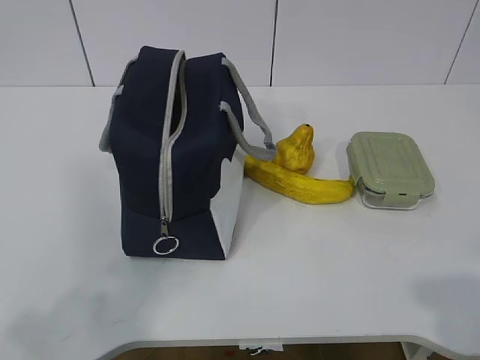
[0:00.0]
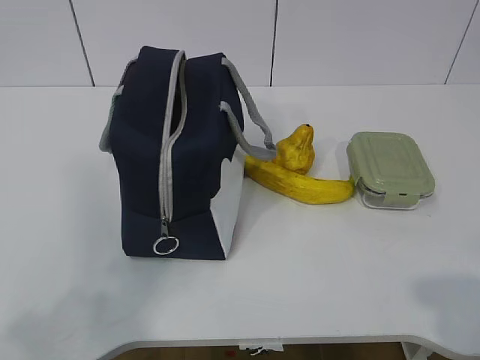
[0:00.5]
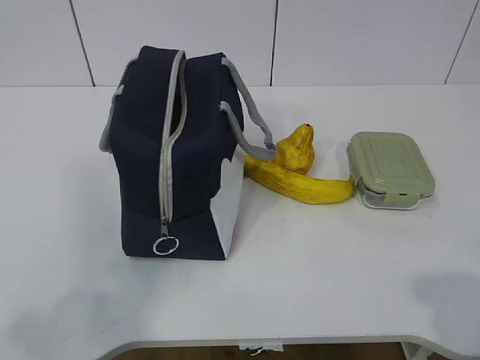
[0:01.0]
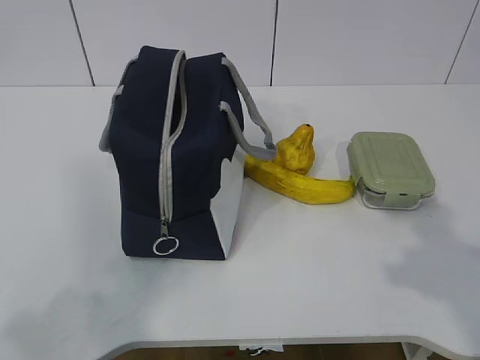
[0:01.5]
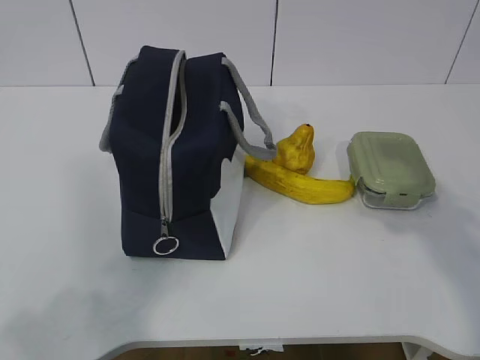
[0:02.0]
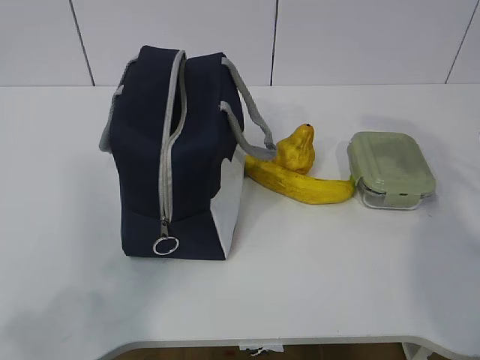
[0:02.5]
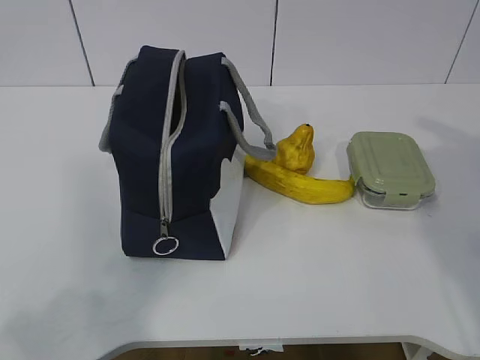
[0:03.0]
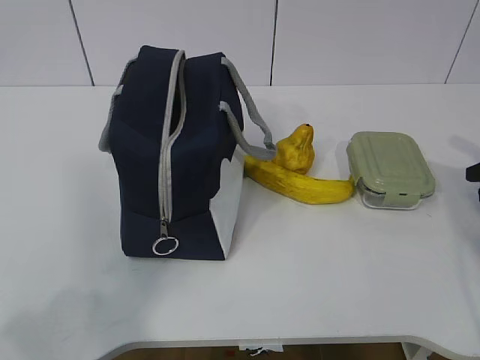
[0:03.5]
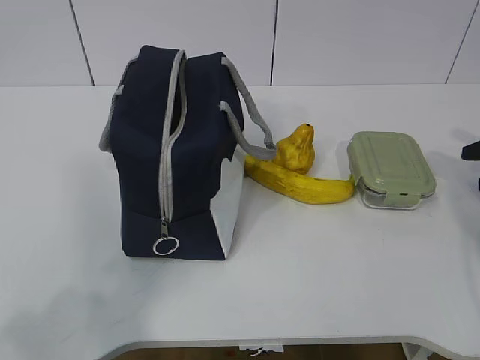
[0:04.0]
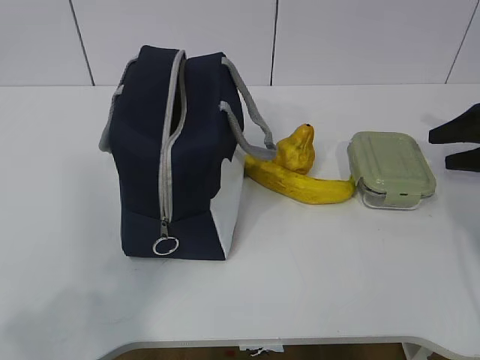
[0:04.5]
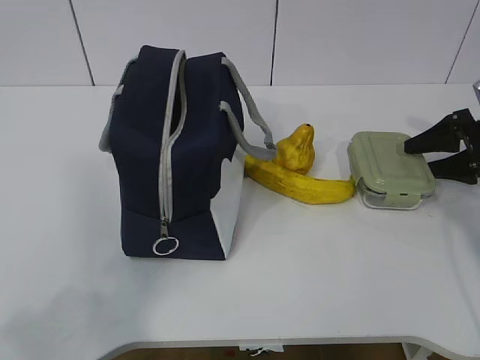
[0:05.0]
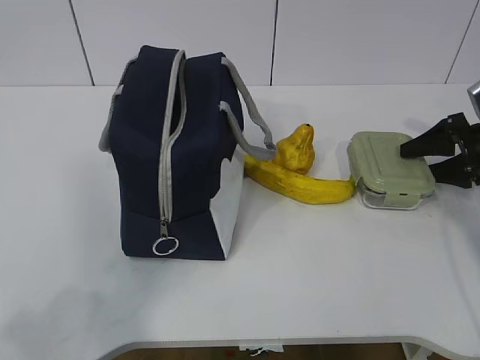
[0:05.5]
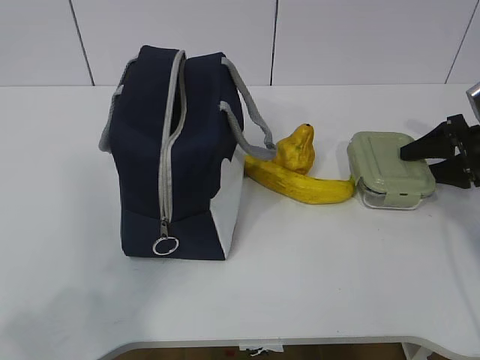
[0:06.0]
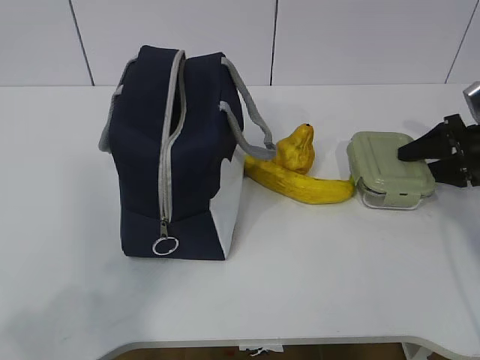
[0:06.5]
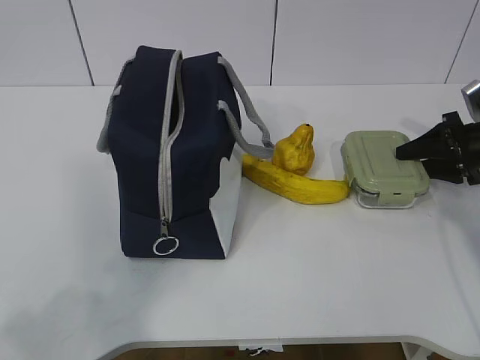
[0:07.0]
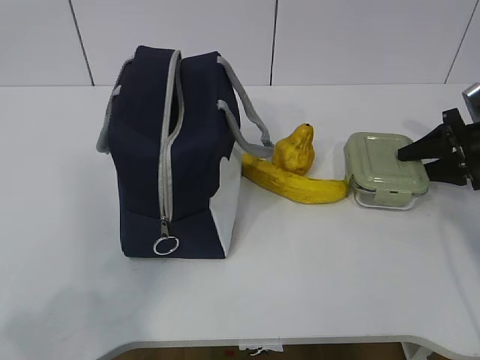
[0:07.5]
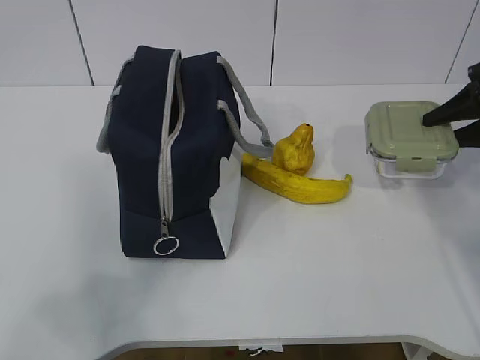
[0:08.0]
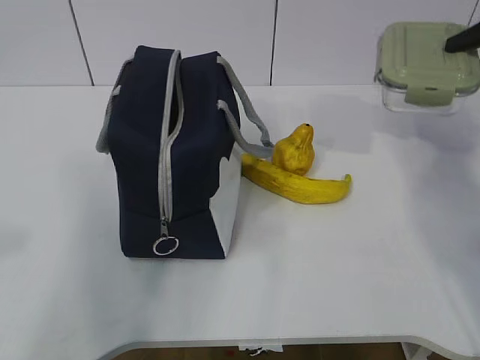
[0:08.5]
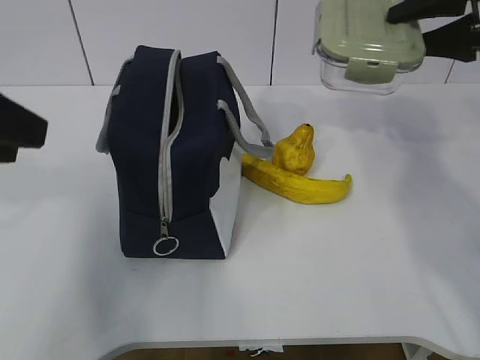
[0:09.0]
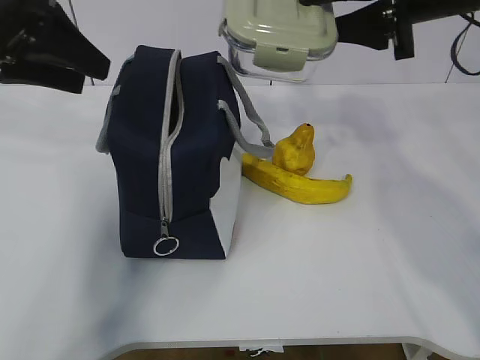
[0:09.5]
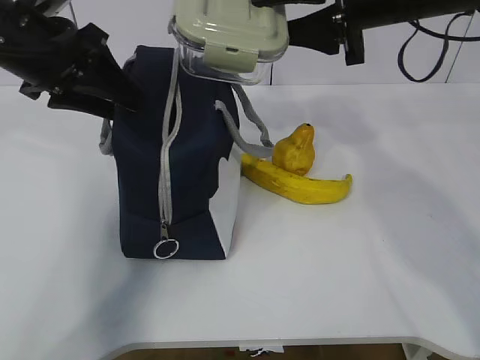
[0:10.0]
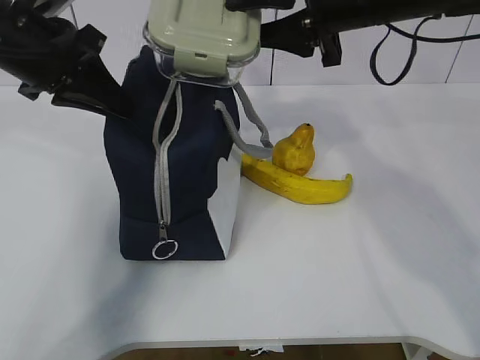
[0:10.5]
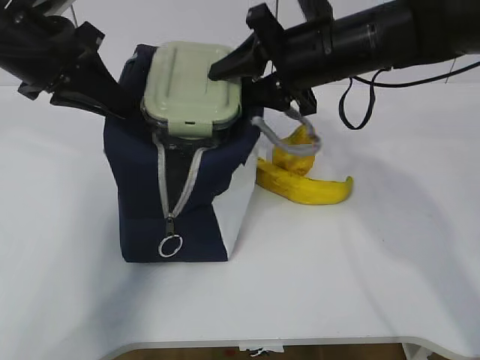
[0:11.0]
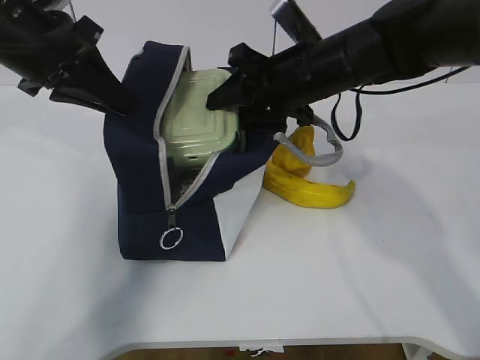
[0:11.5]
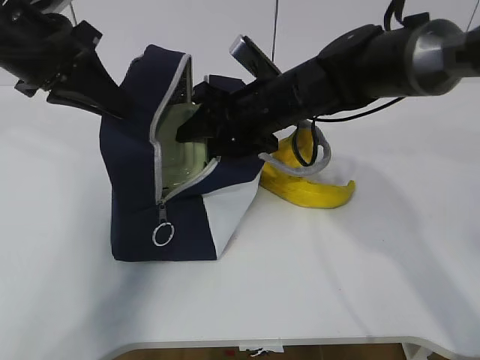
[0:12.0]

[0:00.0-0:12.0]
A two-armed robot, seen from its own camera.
Step, 0:00.0 to 0:06.0: Grab the lunch box with your right hand.
Step, 0:06.5 to 0:08.5: Grab the lunch bag with your left hand.
Step, 0:09.0 to 0:10.5: Place it into the bag with your right hand.
0:02.0 to 0:04.0: The right gripper goes roughly 30 cm forward, to the right and downward.
0:04.0 to 0:06.0: The right gripper travels forward by some 5 cm.
0:06.0 to 0:08.0: The right gripper is displaced upward by roughly 10 cm.
0:08.0 to 0:10.0: The right gripper moves to the left and upward, about 25 cm. The left gripper is displaced forward by approximately 35 cm.
0:10.0 to 0:12.0: The right gripper shifts about 15 cm downward and to the left, while the left gripper closes up.

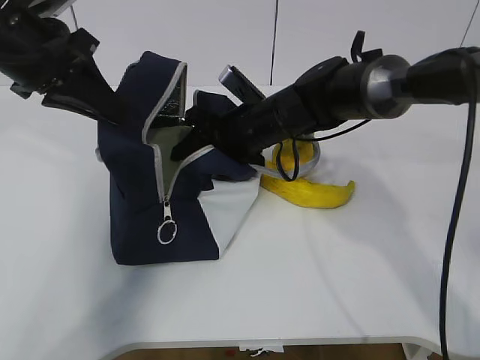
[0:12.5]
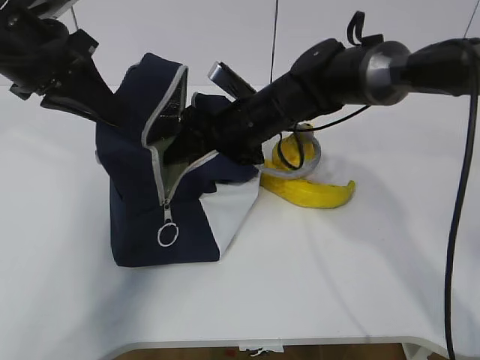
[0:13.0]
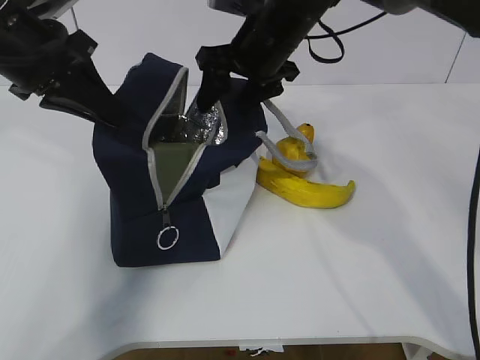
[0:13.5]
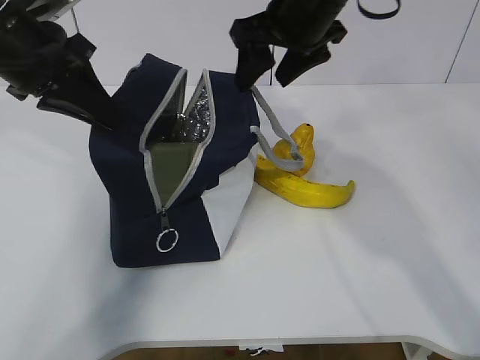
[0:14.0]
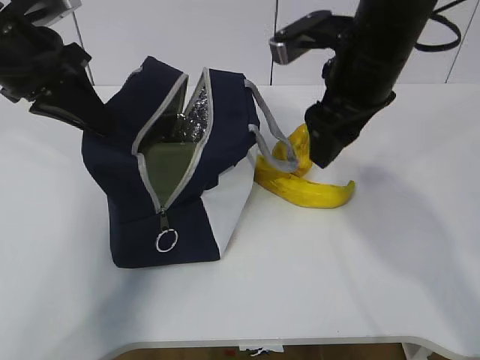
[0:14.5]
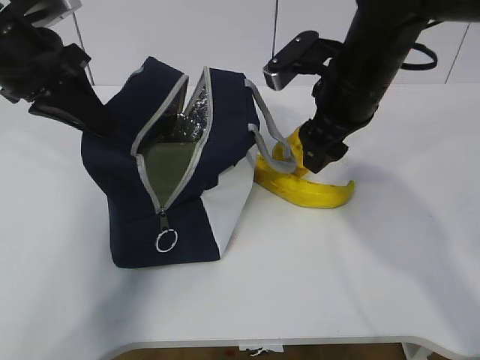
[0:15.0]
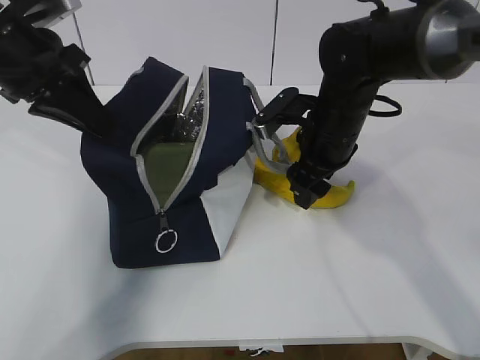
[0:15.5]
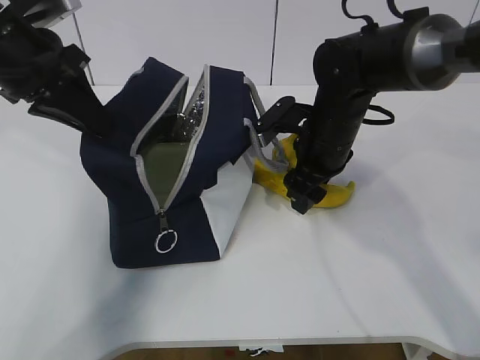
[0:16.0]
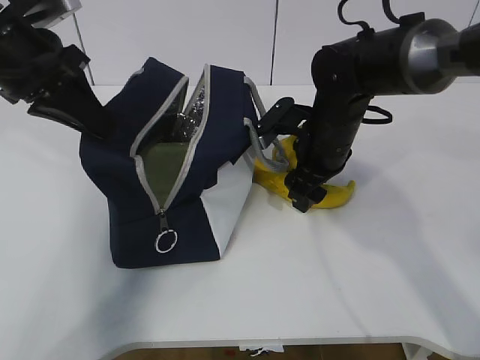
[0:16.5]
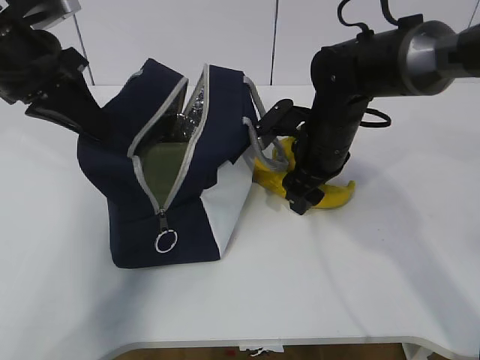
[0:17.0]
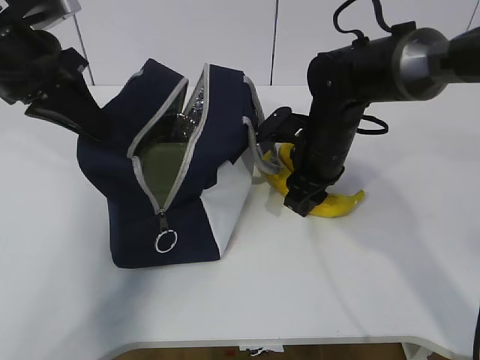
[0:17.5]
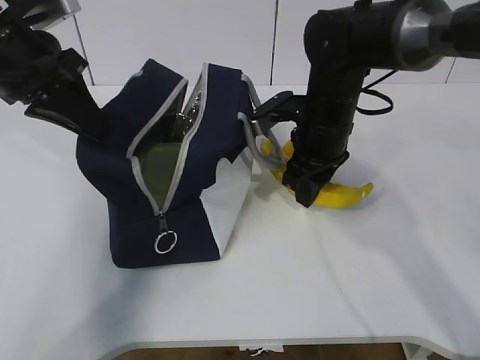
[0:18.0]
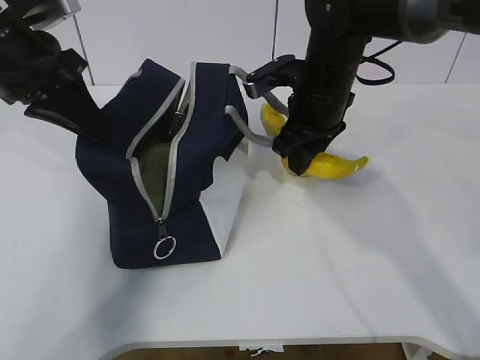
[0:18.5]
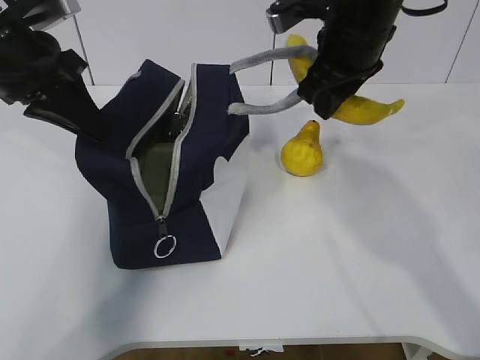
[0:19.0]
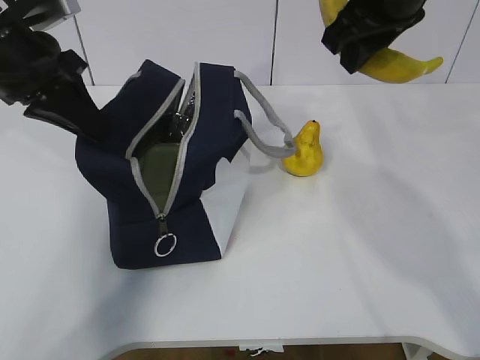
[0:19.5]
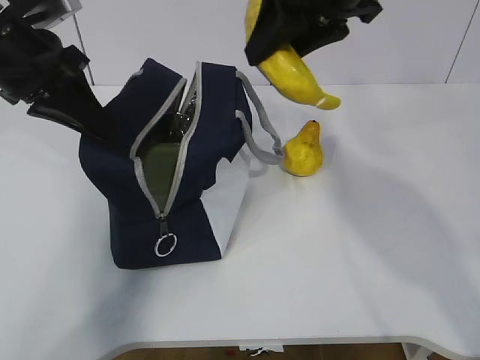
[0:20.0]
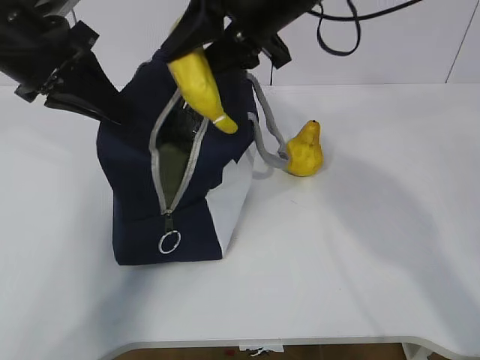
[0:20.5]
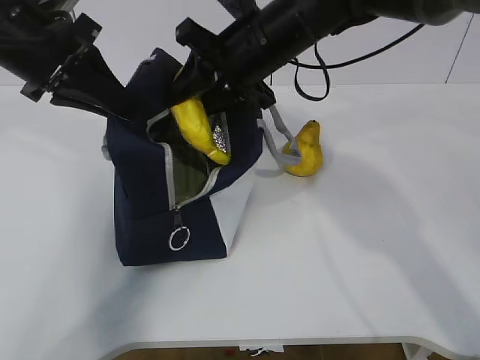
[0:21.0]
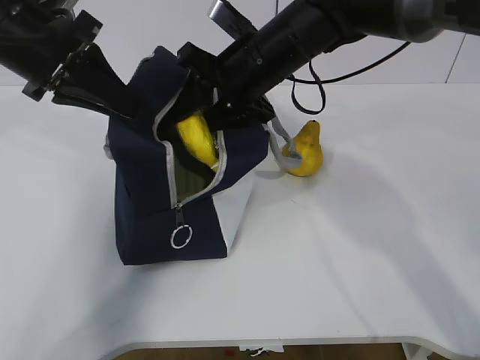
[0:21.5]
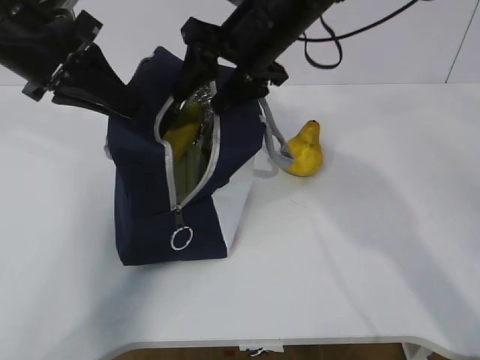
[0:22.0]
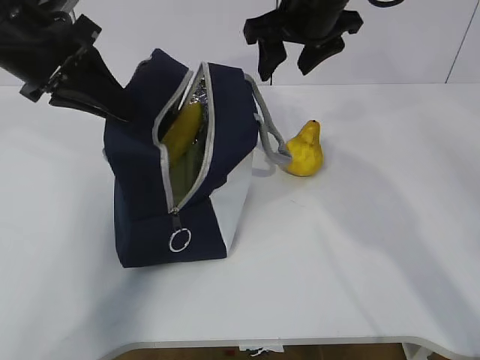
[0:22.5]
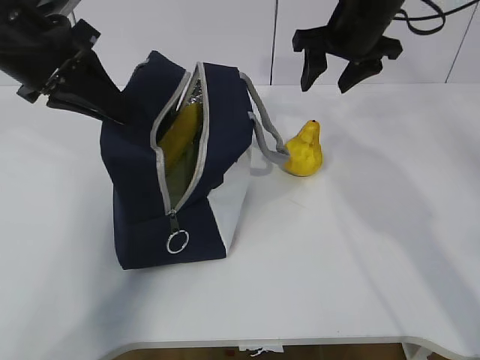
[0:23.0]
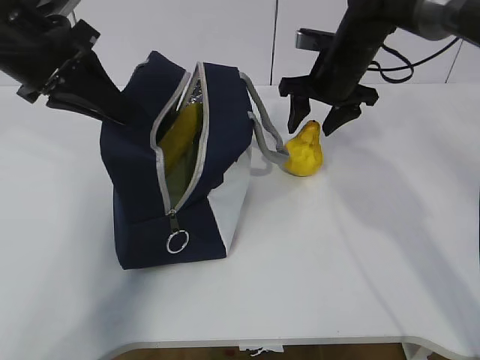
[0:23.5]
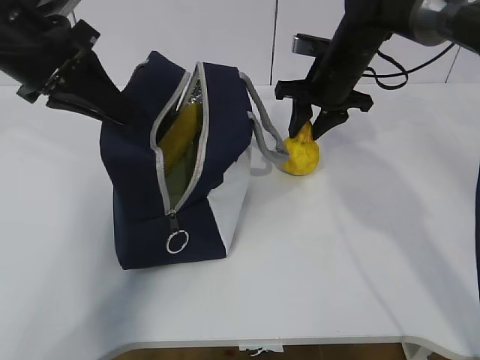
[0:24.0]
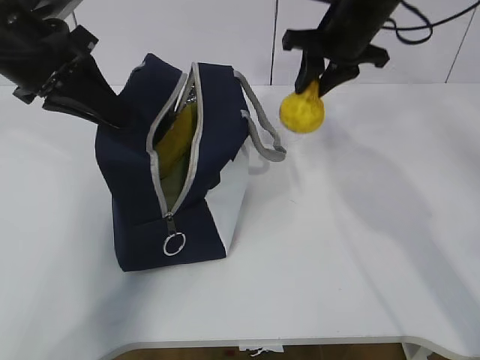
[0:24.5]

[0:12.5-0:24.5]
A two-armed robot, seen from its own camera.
Step, 0:15.0 to 0:18.0: Place it into the bag with your right hand.
Step, 0:18.5 to 0:20.0: Grab the pear with your right hand.
Step, 0:23.0 to 0:23.5: Move the lunch bag to the right.
0:12.5 to 0:14.5: The right gripper travels upward, to the right and backward by approximately 20 cm.
0:14.5 to 0:16.5: The right gripper heads downward, covering some 15 cm.
0:16.5 to 0:18.5: The right gripper shifts about 5 cm upward, and closes its fingers.
0:18.5 to 0:20.5: The right gripper goes about 15 cm upward and to the left.
0:20.5 to 0:22.5: The right gripper shifts some 5 cm forward, travels downward and back again, some 10 cm each way, and opens.
0:22.5 to 0:24.5: The right gripper travels to the right by roughly 5 cm, and closes.

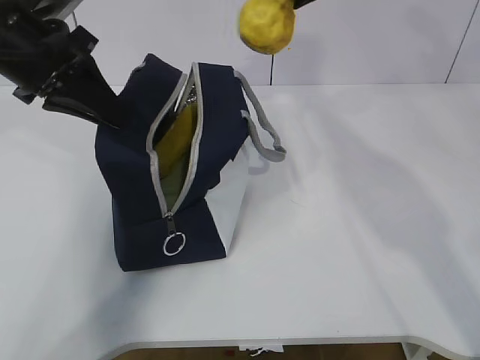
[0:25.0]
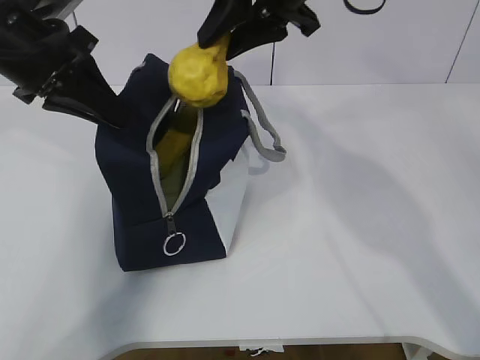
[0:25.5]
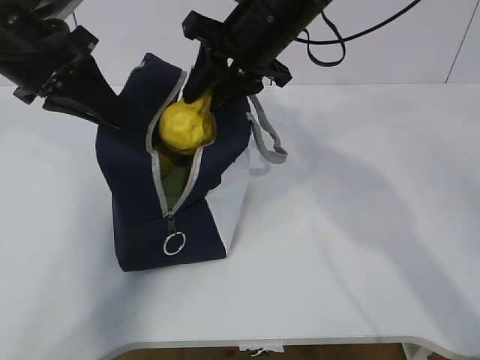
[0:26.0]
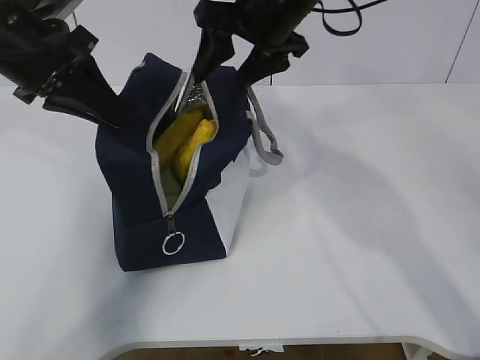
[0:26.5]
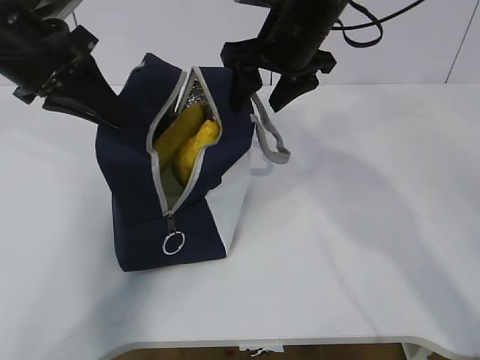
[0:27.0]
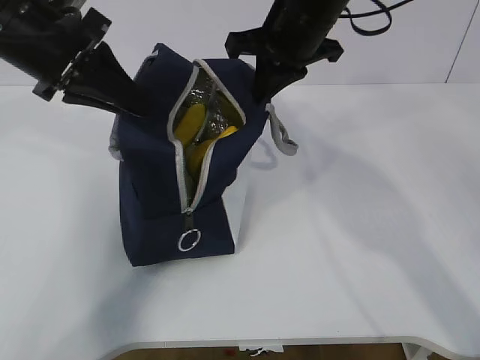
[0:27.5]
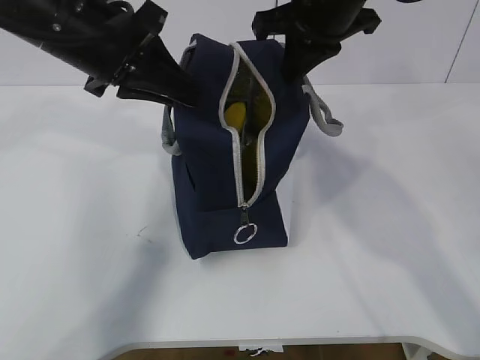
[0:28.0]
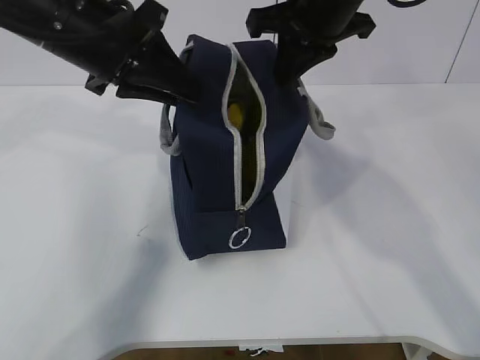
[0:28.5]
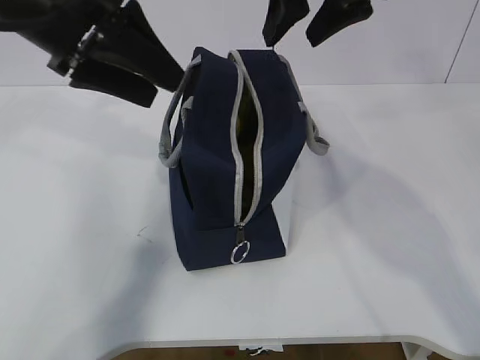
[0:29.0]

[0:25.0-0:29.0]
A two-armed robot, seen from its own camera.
0:25.0 to 0:27.0: The right gripper moves downward and to the left, approximately 10 cm, and opens.
0:27.0 to 0:29.0: The left gripper changes place by roughly 5 cm, and opens its fingers; the right gripper travels upward by about 10 cm, and closes, then opens again.
